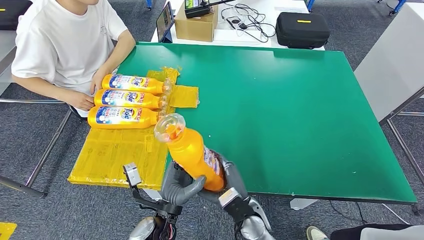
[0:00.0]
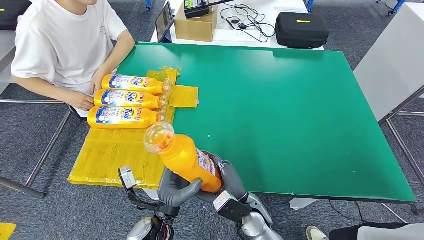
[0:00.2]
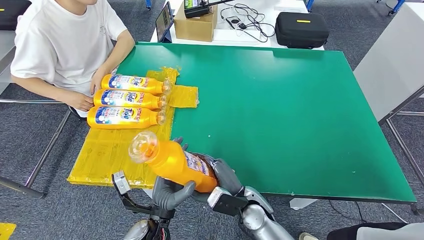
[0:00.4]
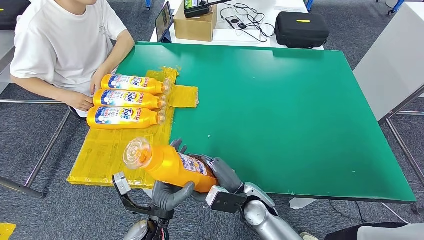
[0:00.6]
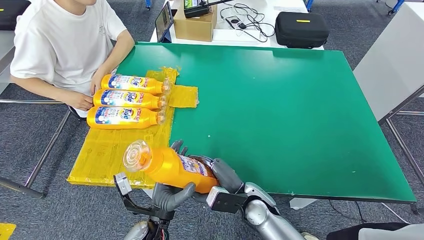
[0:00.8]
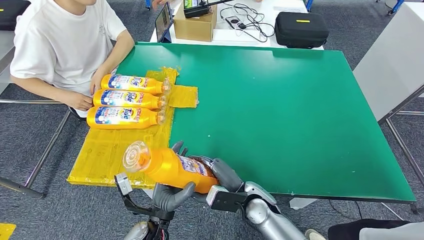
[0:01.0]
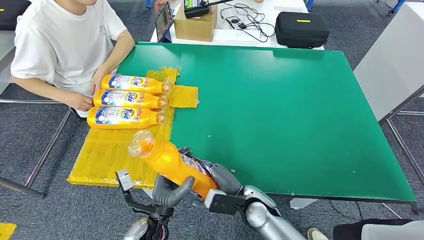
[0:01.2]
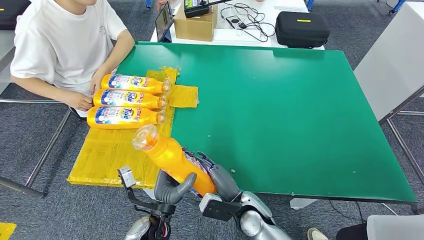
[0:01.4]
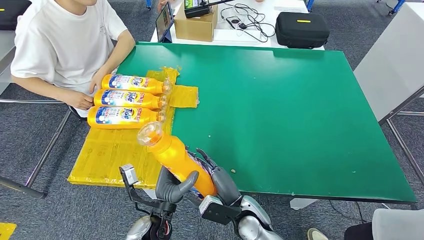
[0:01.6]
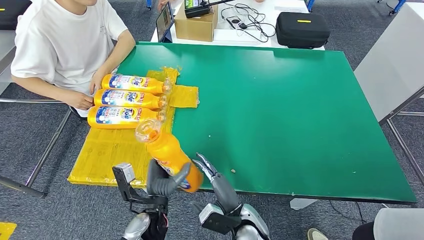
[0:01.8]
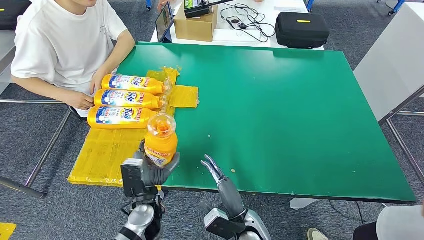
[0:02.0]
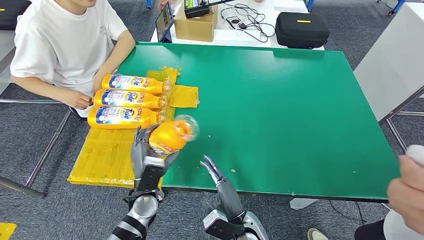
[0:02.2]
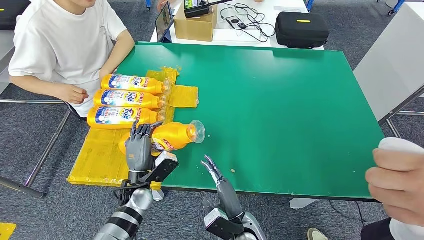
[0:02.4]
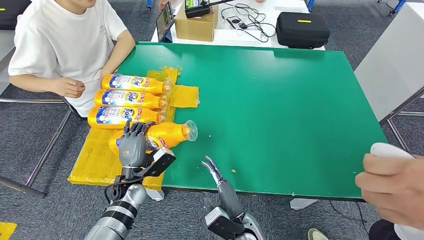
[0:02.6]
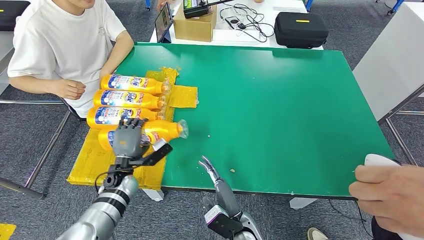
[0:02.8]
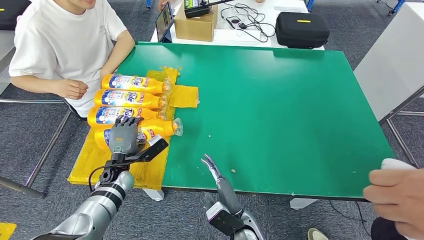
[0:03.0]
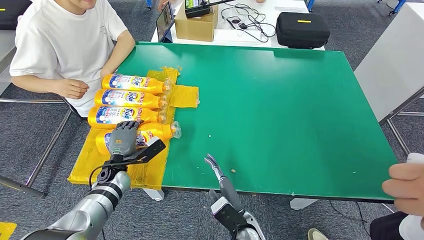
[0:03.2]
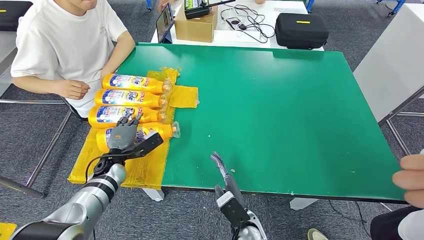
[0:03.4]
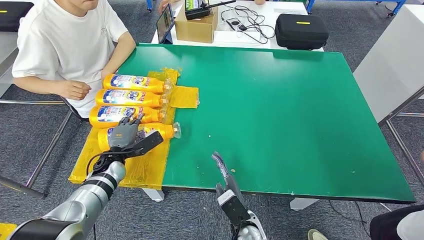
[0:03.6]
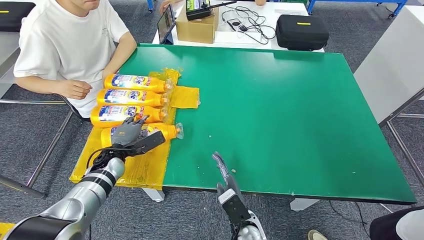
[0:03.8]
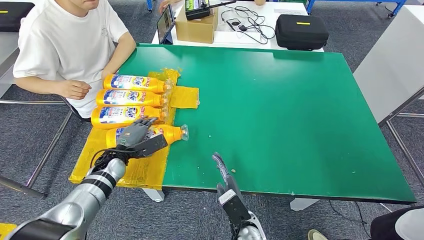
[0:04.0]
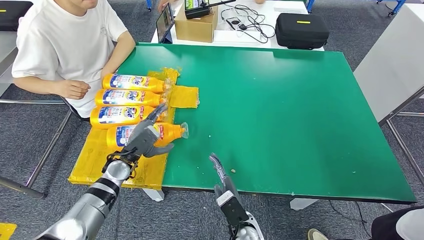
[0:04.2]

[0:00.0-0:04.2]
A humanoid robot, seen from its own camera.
Step, 0:00.2 to 0:04.2: Flip the bottle to face forward.
